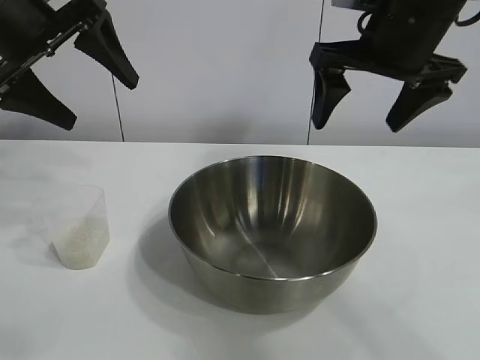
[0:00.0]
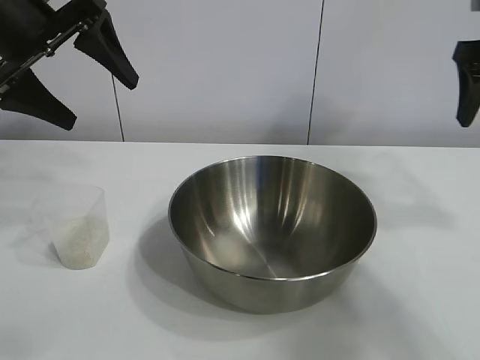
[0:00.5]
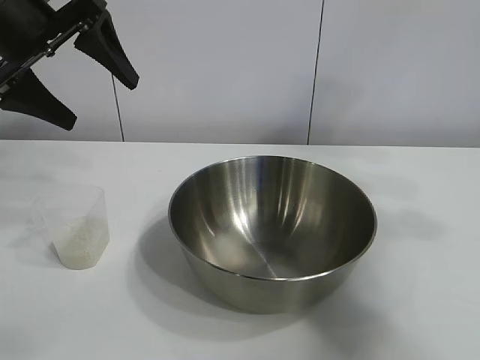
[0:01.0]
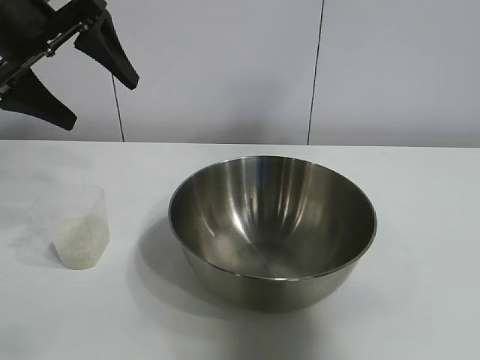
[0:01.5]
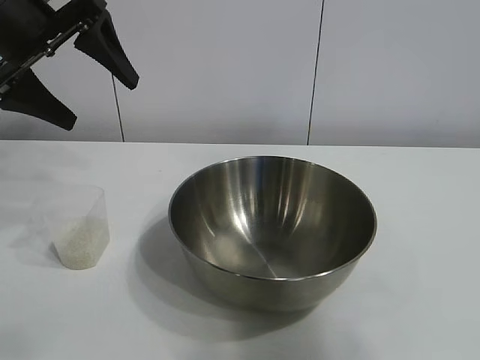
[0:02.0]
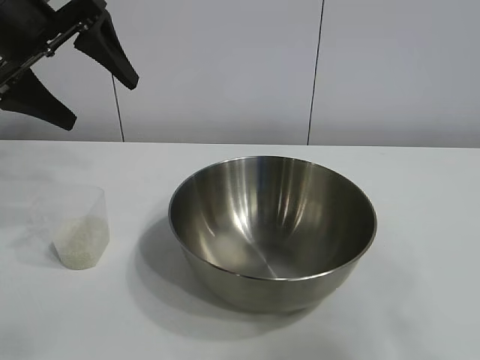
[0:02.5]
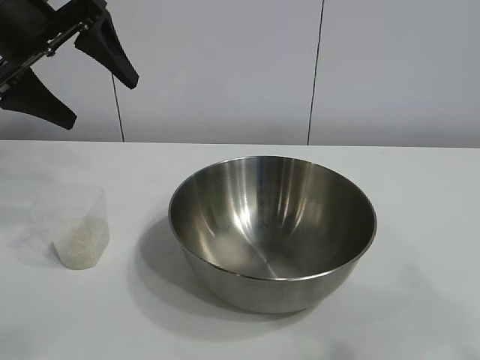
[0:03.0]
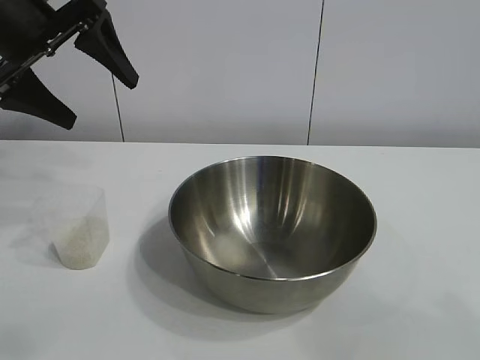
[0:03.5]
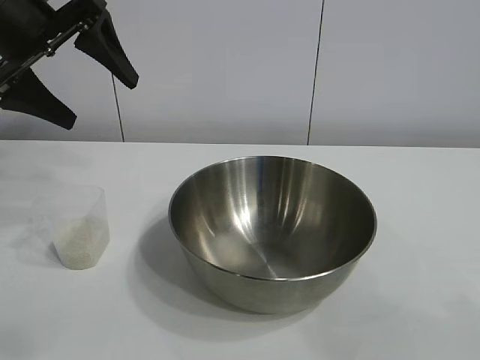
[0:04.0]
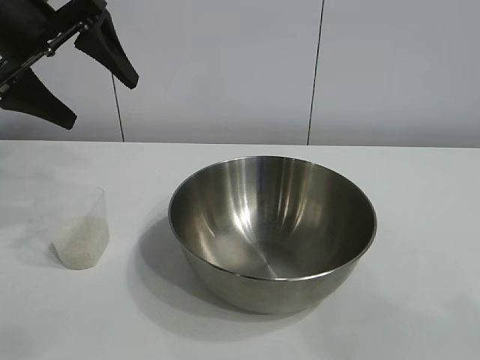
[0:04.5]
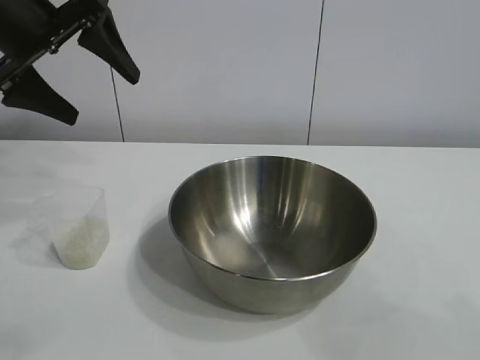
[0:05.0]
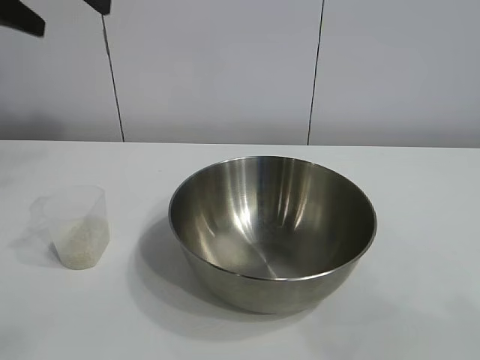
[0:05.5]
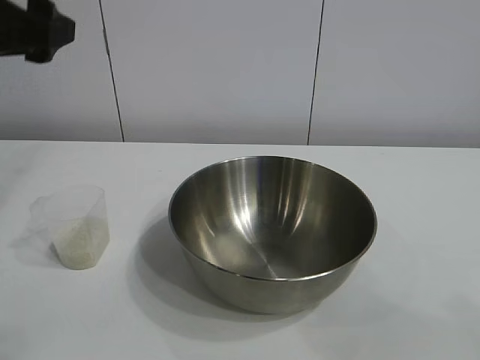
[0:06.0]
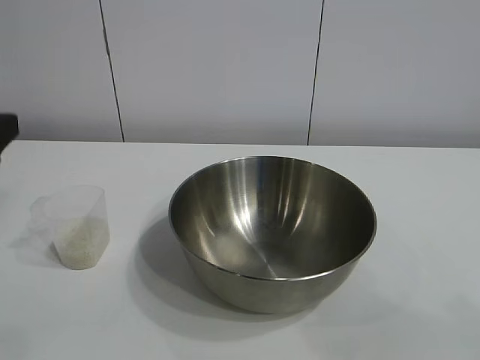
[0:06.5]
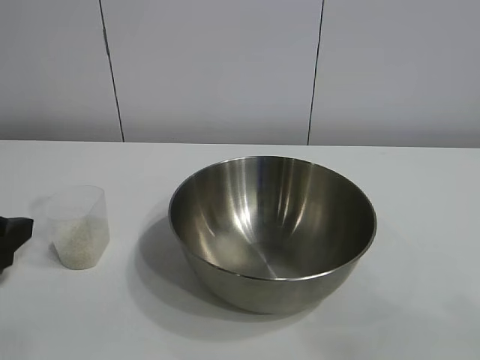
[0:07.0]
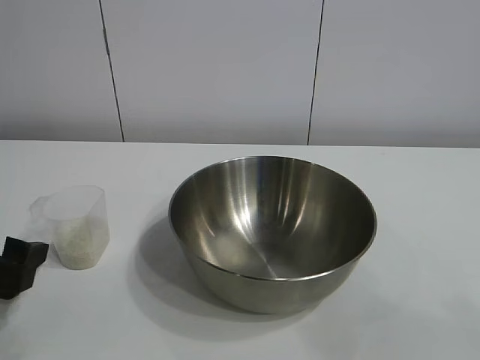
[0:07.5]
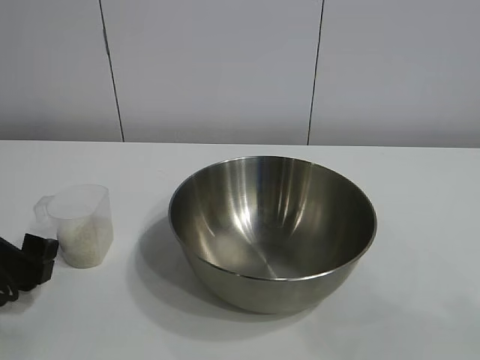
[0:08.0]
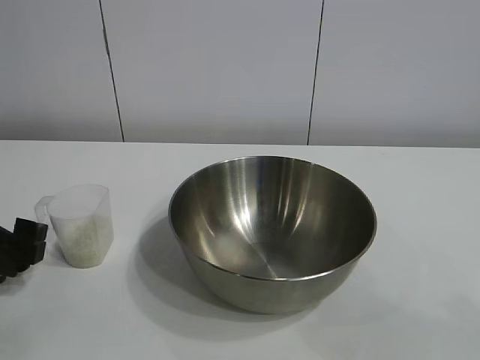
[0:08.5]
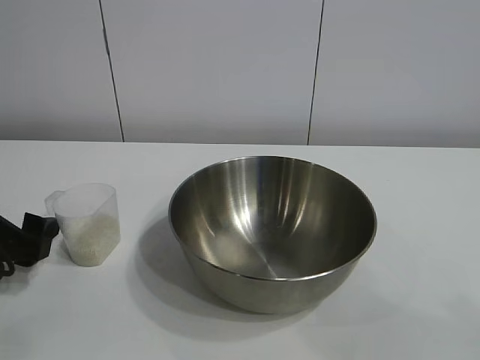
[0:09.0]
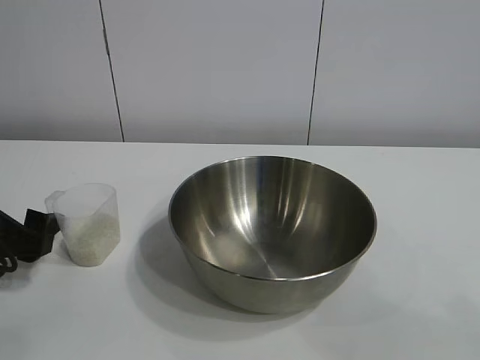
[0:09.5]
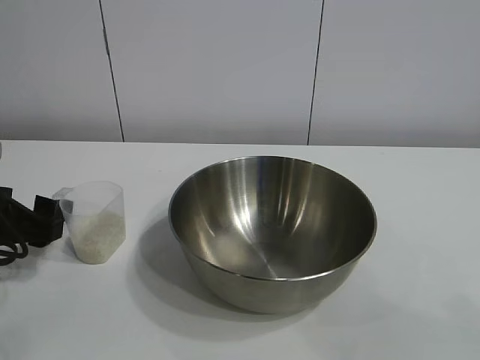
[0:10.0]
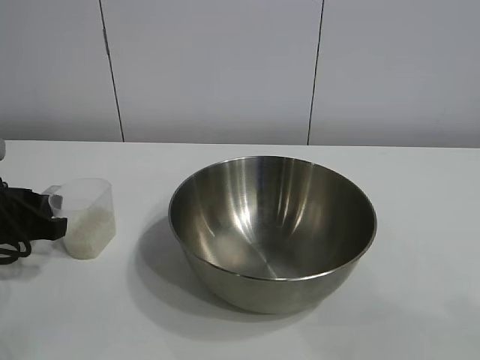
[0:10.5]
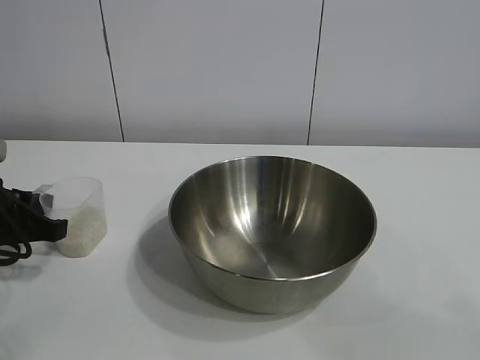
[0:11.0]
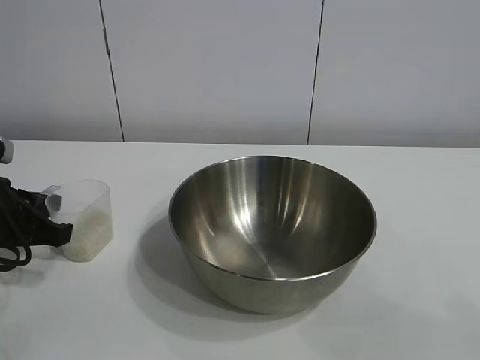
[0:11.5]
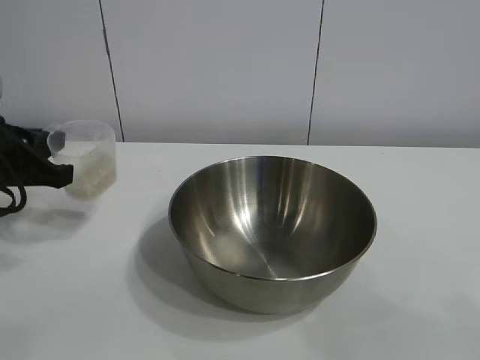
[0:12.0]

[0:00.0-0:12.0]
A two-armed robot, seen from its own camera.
Task of the whole recording: the right gripper grasp the rice container and place it in the center of the table, the left gripper grasp the rice scoop and pour the rice into the rice container.
Step, 0:00.0 to 0:11.0: Grasp the cup with rice in it with left gripper.

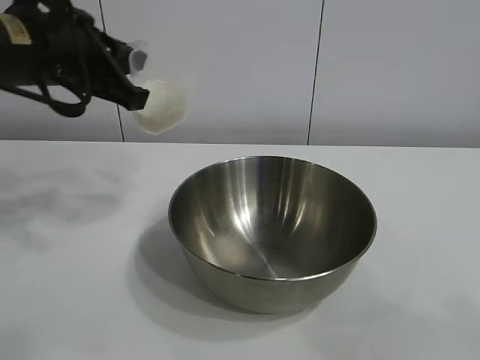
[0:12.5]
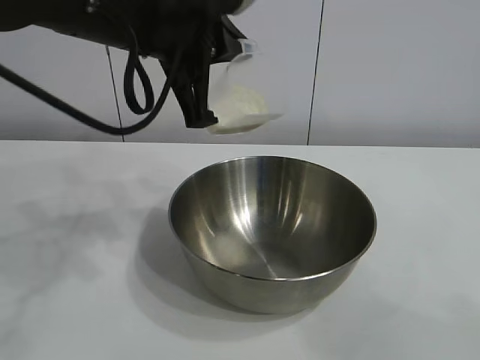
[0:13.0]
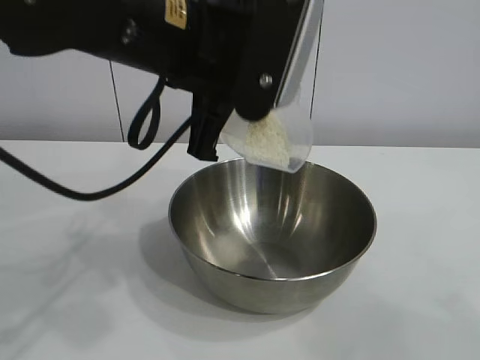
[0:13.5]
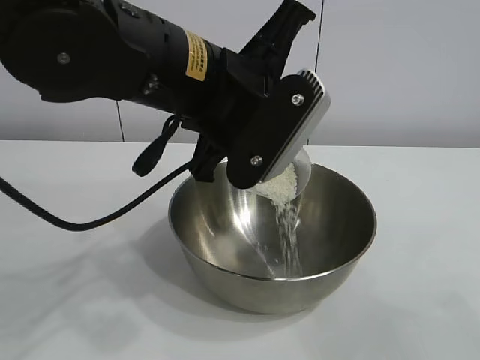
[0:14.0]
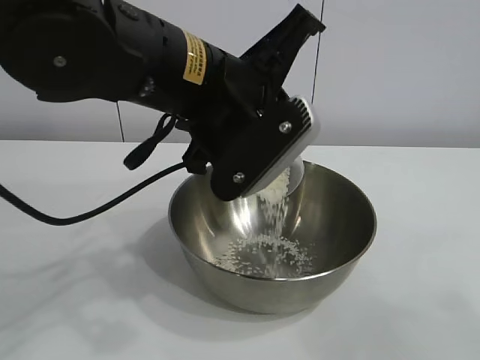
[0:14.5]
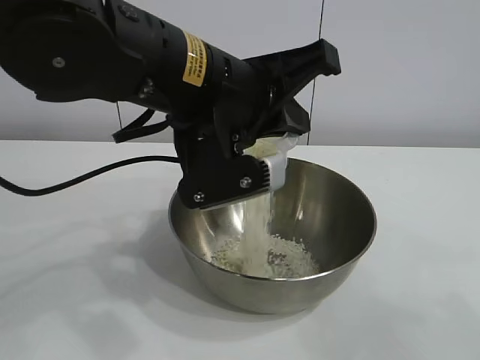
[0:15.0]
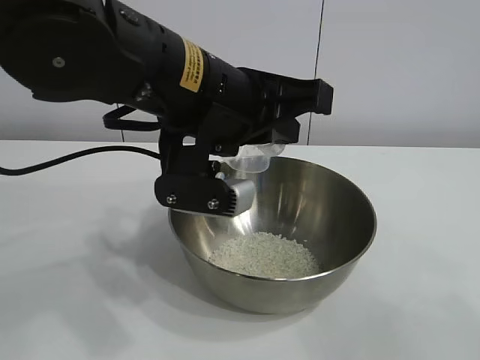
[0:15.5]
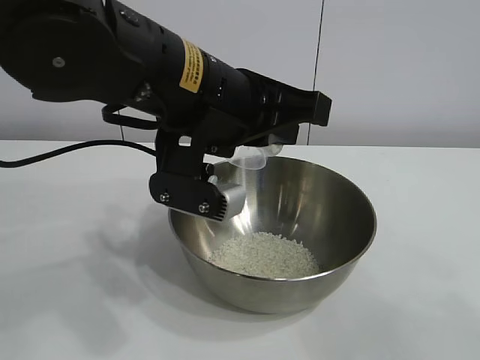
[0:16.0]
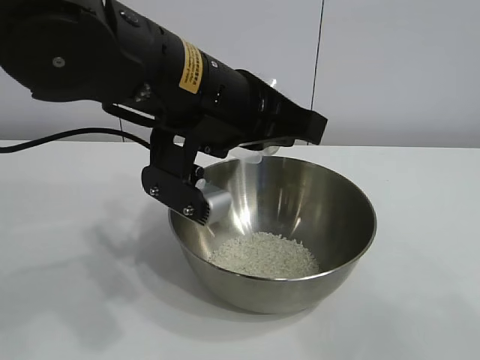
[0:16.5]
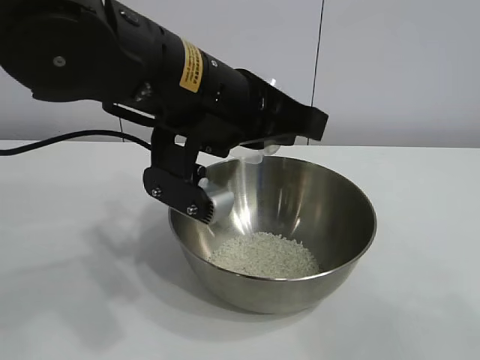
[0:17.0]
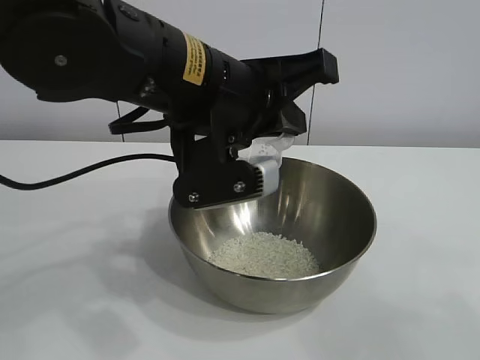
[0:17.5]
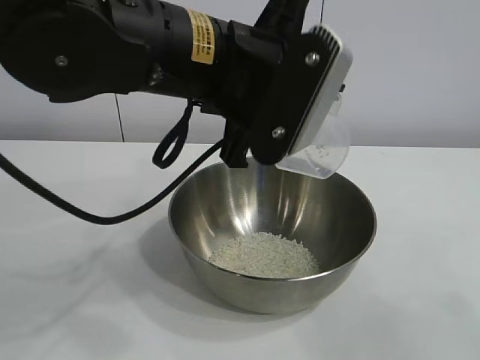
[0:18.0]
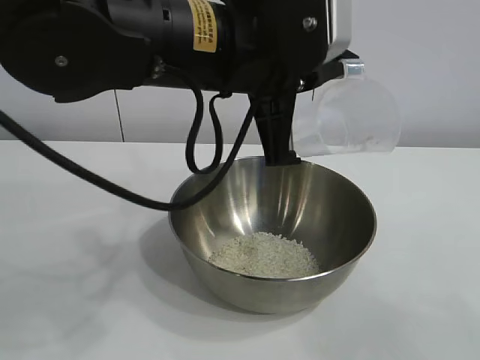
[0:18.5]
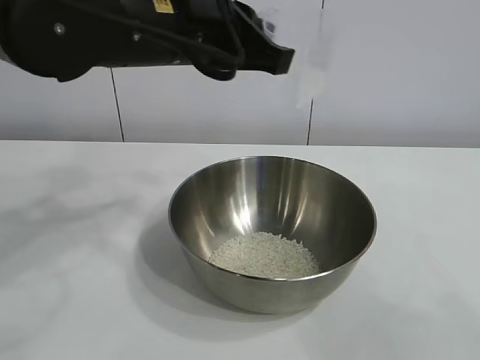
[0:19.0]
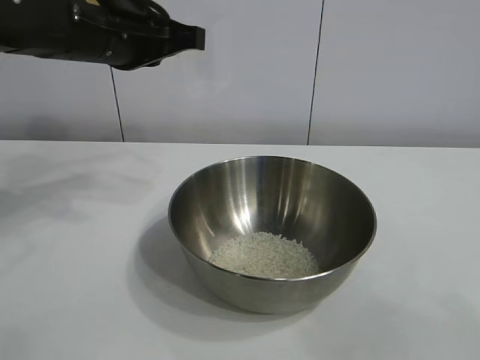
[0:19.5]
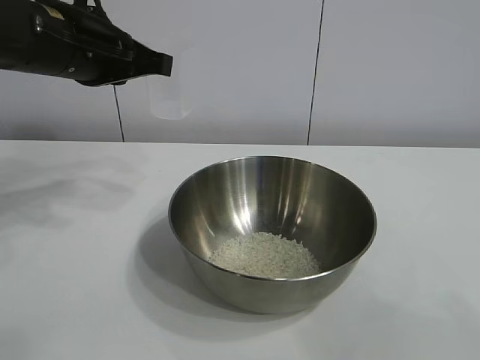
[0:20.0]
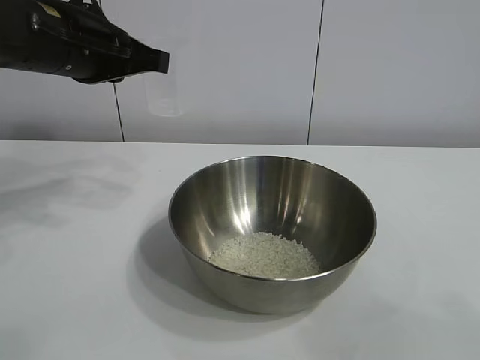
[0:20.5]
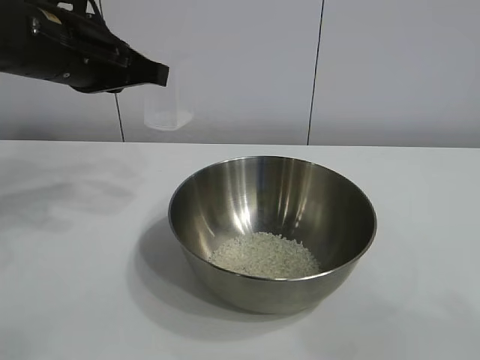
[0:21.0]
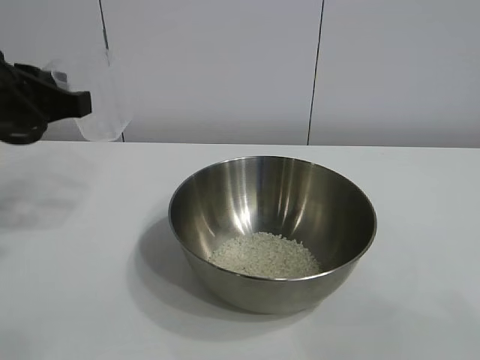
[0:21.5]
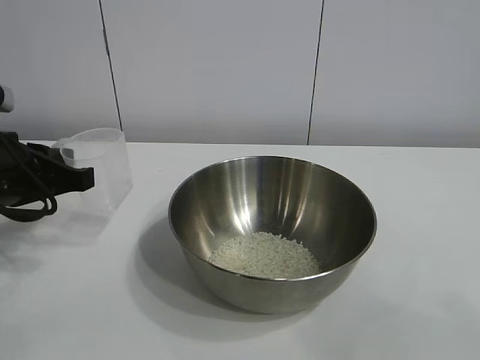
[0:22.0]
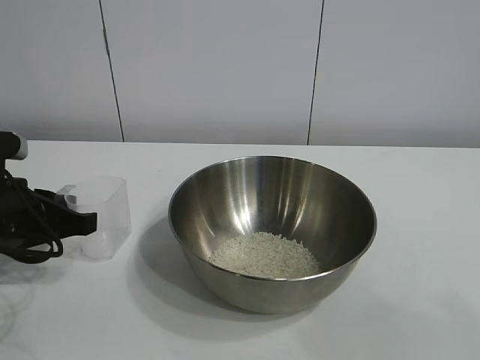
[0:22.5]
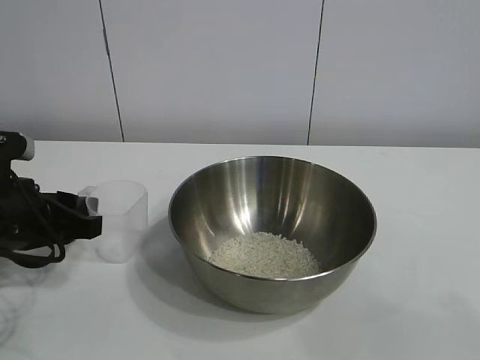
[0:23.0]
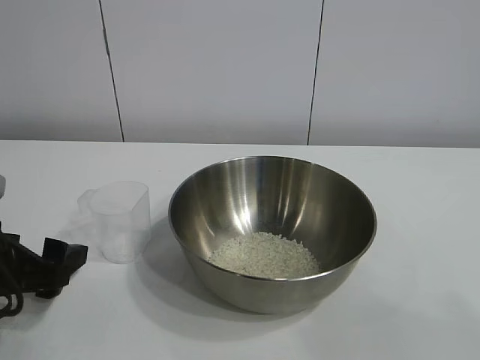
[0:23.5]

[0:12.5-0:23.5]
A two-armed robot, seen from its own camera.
Task of the whole recording: the right gripper grasp the rice container and place it in the center of the table, the left gripper grasp the rice scoop and pour the rice into the rice container.
Step, 0:12.5 to 0:16.0: Pour the rice from the cup into the bowl with the left gripper.
Step, 0:16.5 to 0:23.0: Place the cup on the table with the left gripper.
